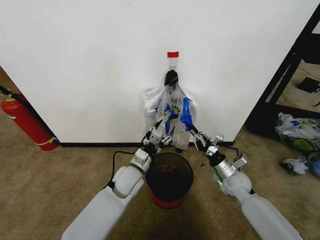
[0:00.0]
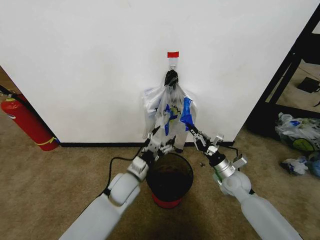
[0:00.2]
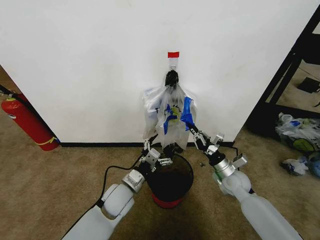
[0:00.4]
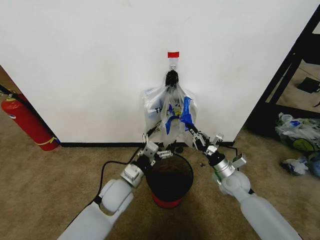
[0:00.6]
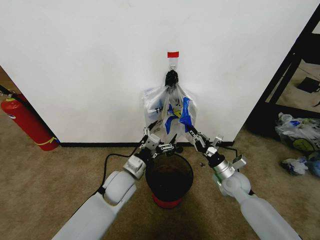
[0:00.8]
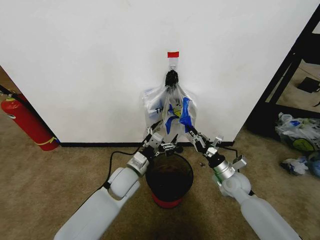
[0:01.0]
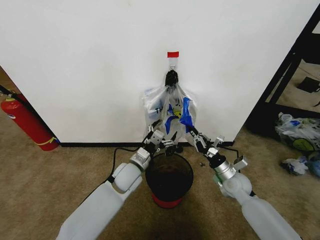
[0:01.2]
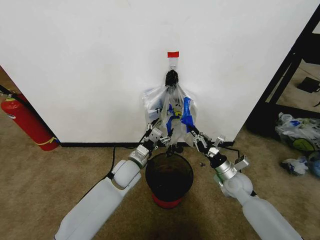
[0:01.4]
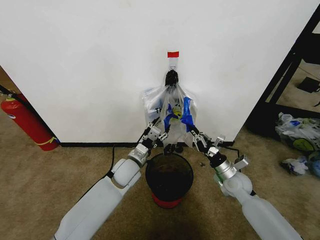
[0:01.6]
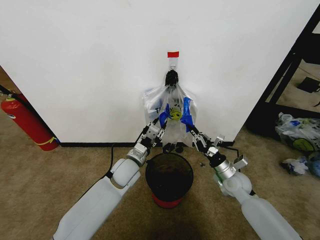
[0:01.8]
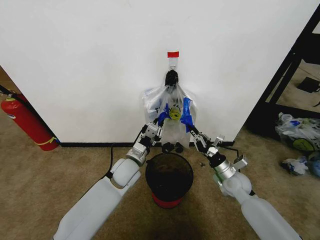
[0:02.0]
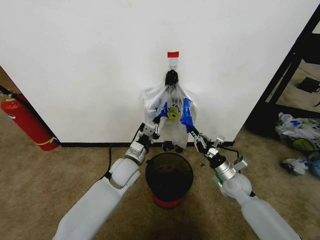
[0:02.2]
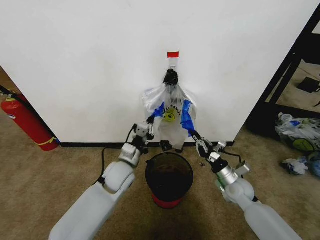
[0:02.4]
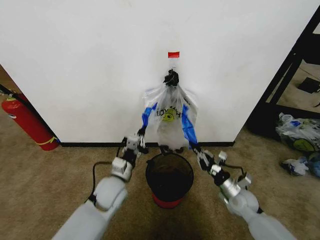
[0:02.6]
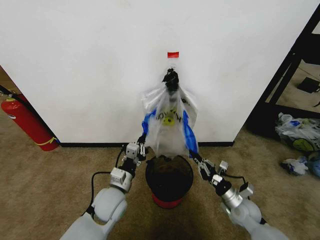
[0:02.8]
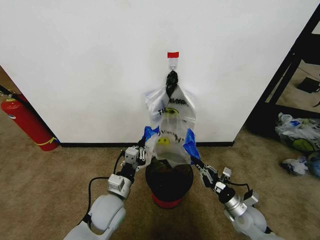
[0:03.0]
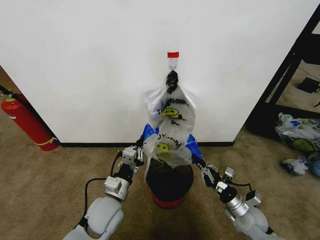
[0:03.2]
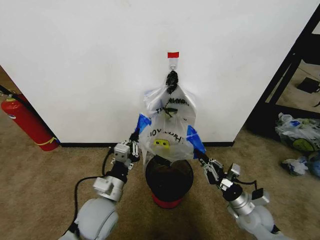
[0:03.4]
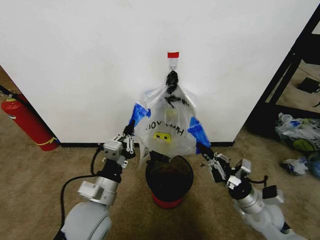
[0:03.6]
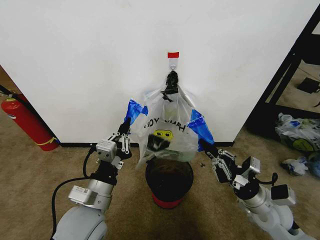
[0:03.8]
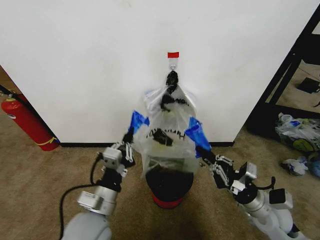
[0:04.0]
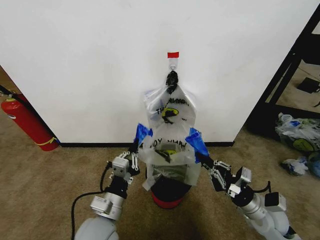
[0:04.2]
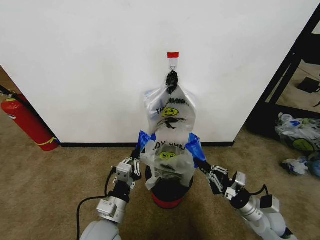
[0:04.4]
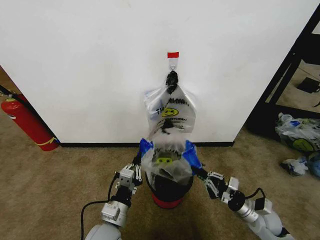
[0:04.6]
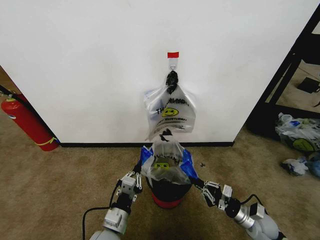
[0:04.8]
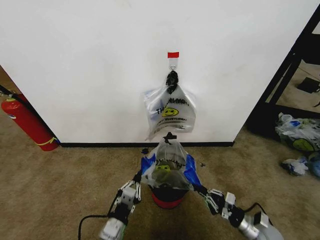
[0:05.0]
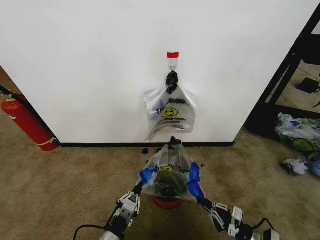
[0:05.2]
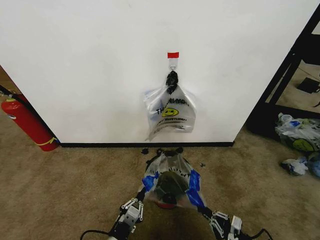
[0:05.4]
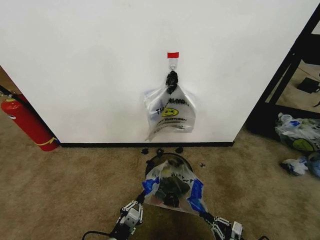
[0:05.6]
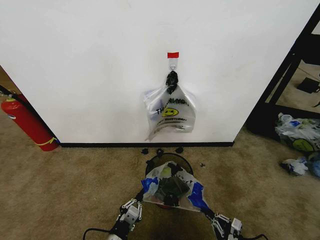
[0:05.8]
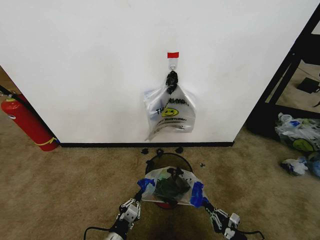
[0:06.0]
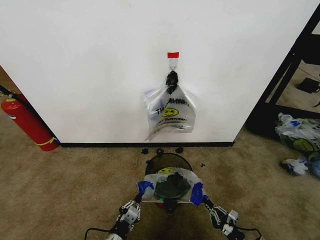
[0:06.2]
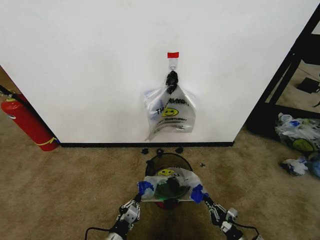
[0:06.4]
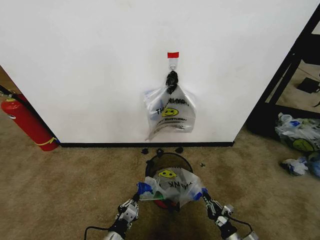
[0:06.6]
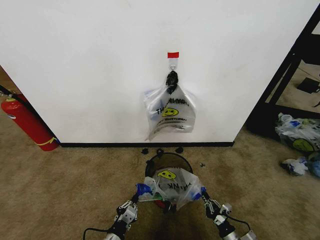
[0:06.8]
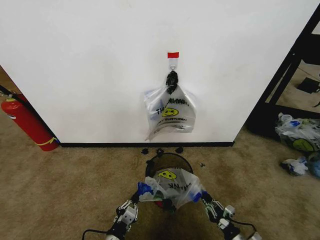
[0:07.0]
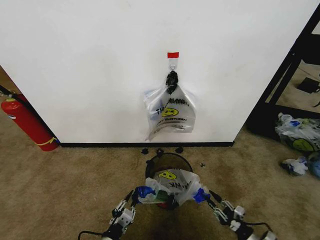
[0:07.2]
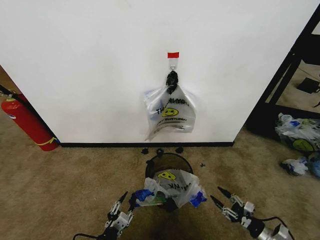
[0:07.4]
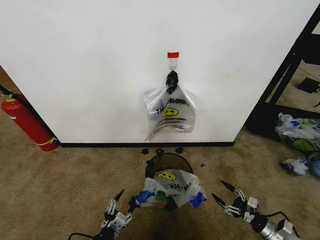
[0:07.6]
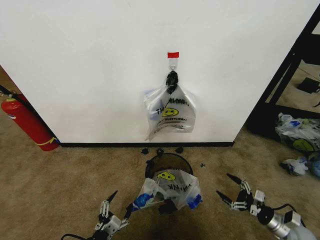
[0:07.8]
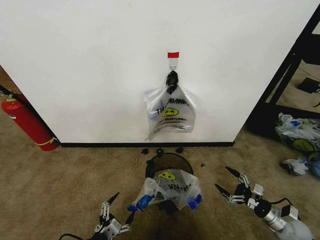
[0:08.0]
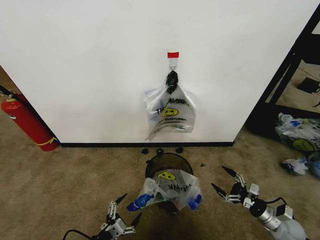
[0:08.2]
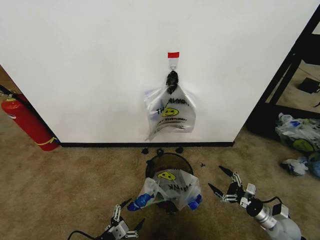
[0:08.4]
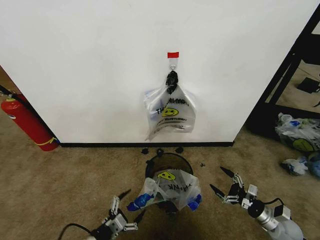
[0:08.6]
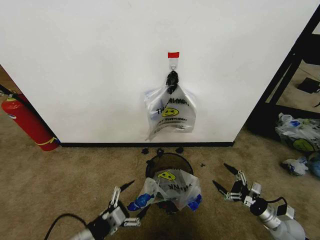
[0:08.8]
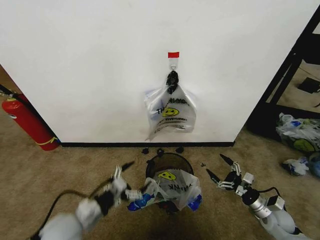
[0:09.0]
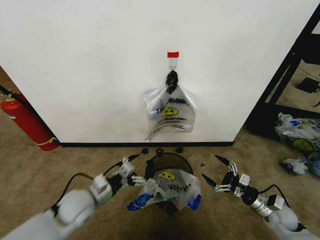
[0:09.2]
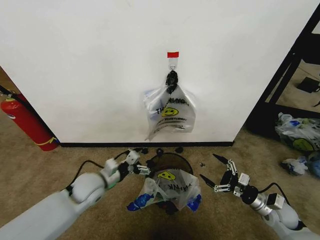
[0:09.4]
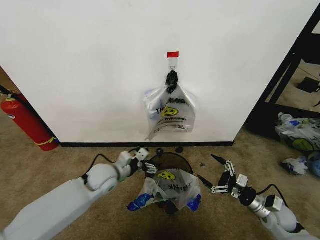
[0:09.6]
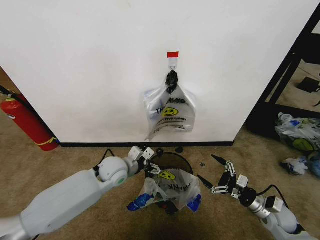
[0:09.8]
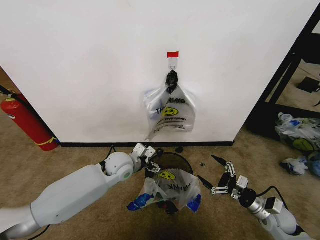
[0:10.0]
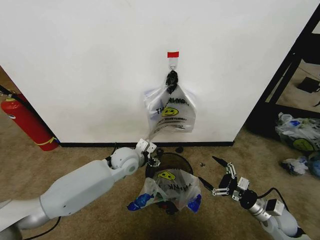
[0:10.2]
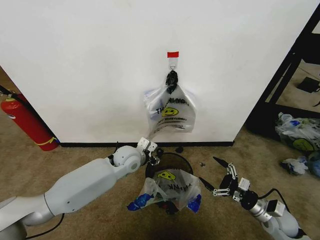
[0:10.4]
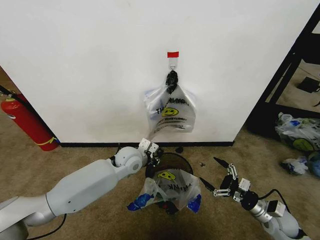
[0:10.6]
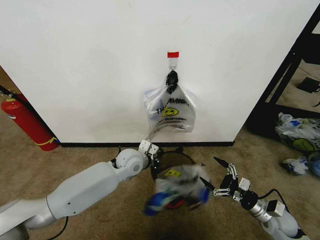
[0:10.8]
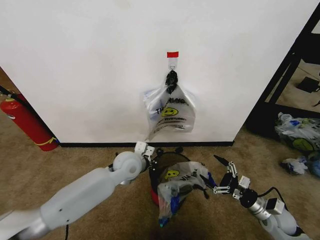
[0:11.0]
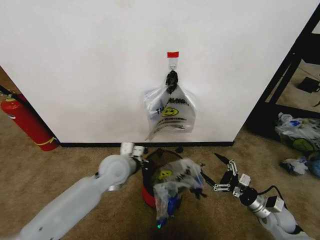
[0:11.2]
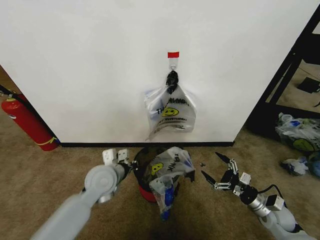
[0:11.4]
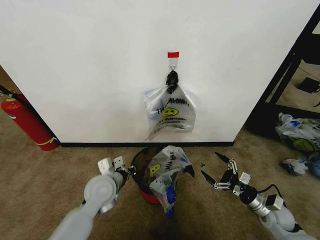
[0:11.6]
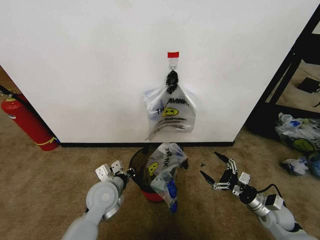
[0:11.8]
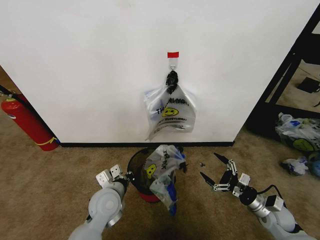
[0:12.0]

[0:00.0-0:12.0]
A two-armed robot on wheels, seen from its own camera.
Task of the whole recording: Pick up the garbage bag from the wall and place it over the trash bin.
0:00.0 to 0:01.6: The left gripper opens, then closes once more.
0:01.6 to 0:03.0: The left gripper moves backward, approximately 15 cm, and closes its fingers. The right gripper travels backward and downward by some 10 cm.
0:03.0 to 0:04.4: The left gripper is displaced backward by about 5 cm, and reaches roughly 10 cm upward, then returns. Meanwhile the right gripper is displaced upward by about 5 cm.
0:04.4 to 0:06.0: Both grippers travel together downward and backward, about 15 cm.
0:06.0 to 0:07.6: The left gripper opens up; the right gripper is displaced to the right, forward and upward by some 10 cm, and opens up.
0:07.6 to 0:09.0: The right gripper is displaced forward and upward by roughly 10 cm; the left gripper moves upward and forward, some 15 cm.
0:09.0 to 0:10.4: The left gripper heads forward and to the right, covering about 25 cm, and closes its fingers.
0:10.4 to 0:12.0: The left gripper moves backward, approximately 15 cm, and closes up.

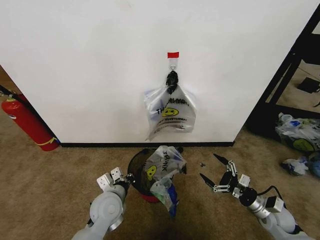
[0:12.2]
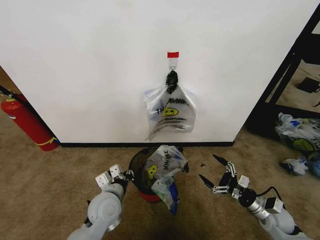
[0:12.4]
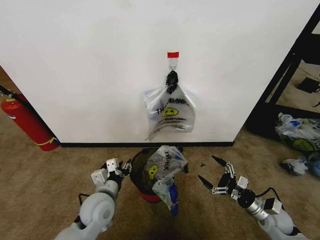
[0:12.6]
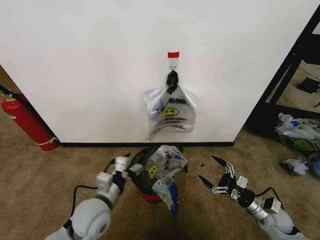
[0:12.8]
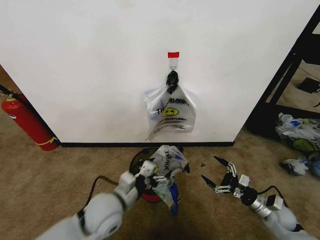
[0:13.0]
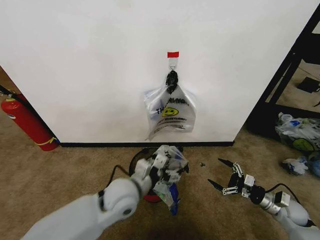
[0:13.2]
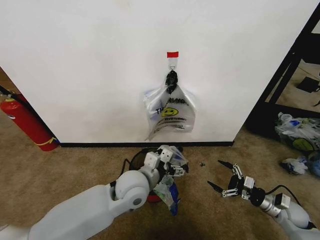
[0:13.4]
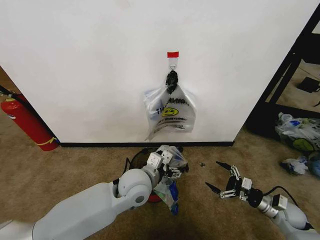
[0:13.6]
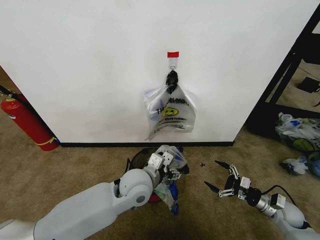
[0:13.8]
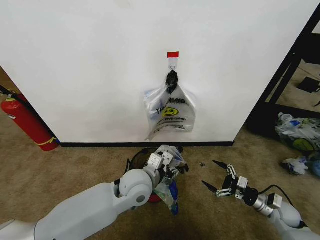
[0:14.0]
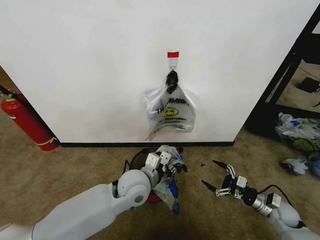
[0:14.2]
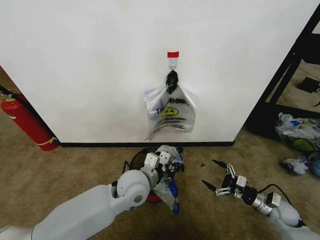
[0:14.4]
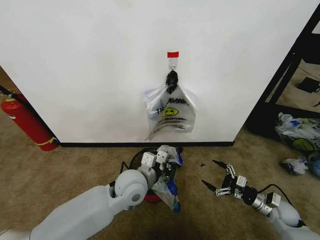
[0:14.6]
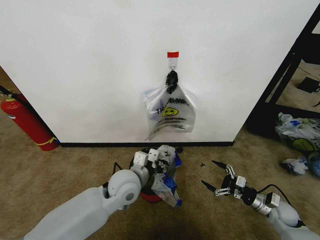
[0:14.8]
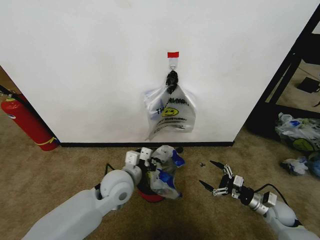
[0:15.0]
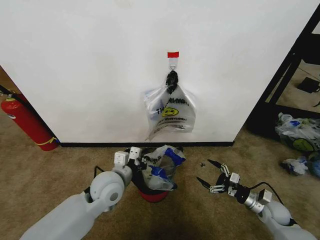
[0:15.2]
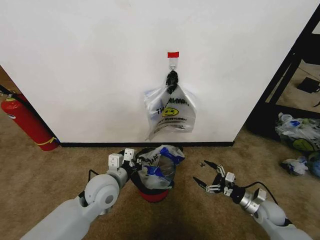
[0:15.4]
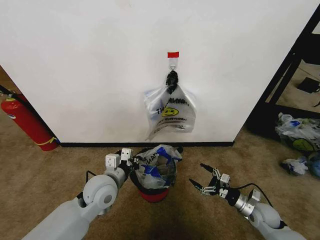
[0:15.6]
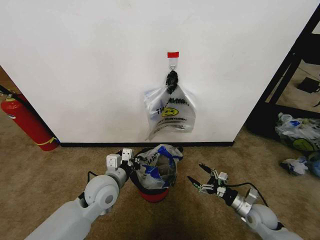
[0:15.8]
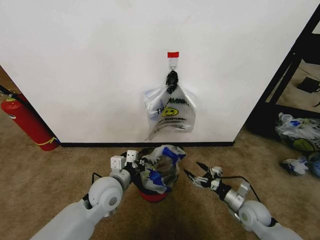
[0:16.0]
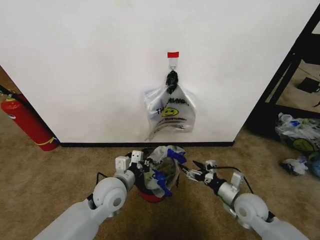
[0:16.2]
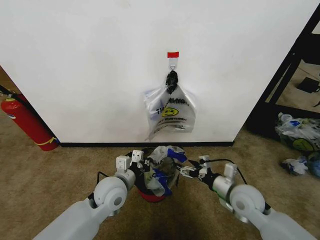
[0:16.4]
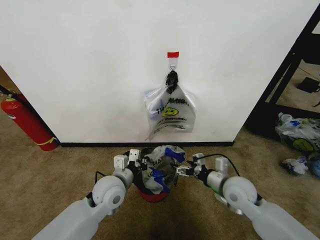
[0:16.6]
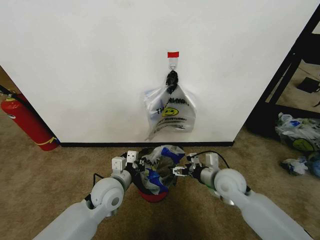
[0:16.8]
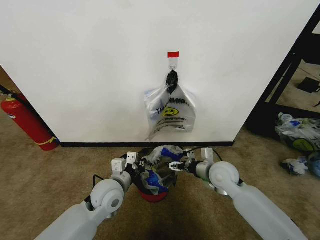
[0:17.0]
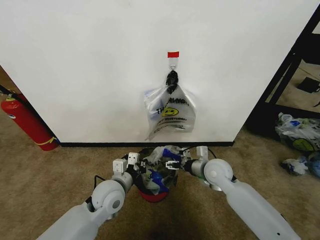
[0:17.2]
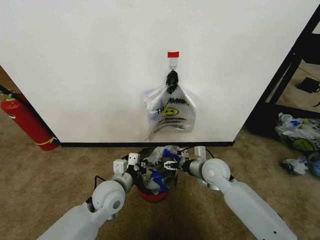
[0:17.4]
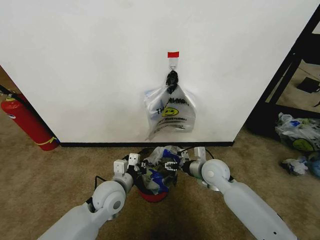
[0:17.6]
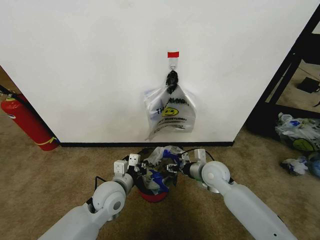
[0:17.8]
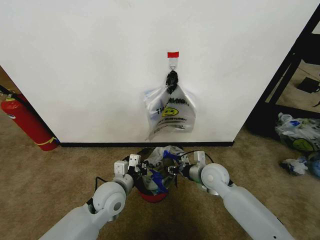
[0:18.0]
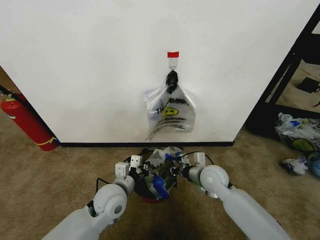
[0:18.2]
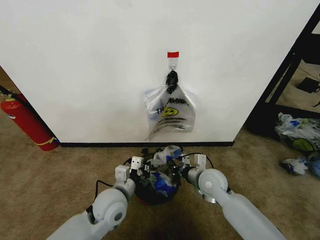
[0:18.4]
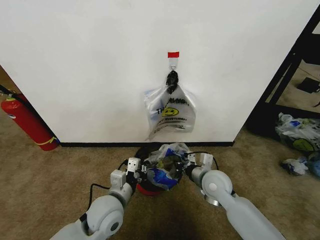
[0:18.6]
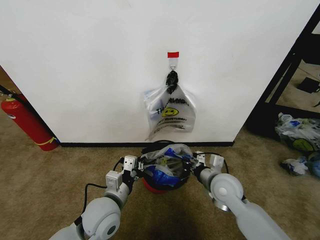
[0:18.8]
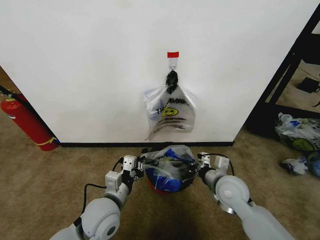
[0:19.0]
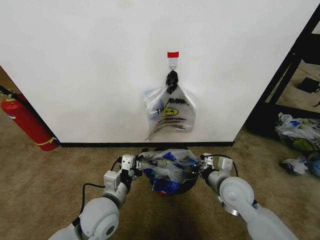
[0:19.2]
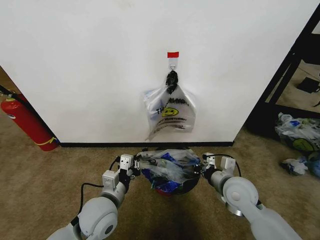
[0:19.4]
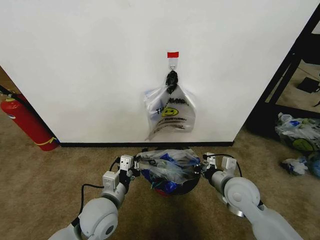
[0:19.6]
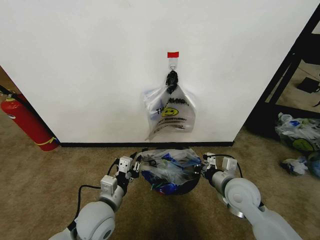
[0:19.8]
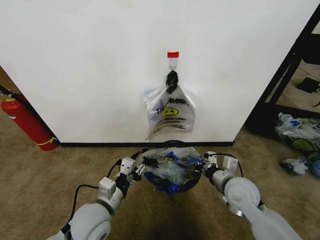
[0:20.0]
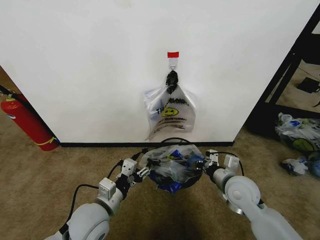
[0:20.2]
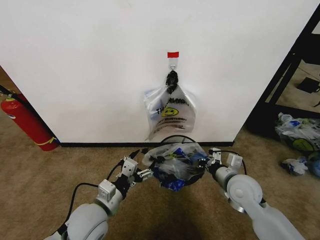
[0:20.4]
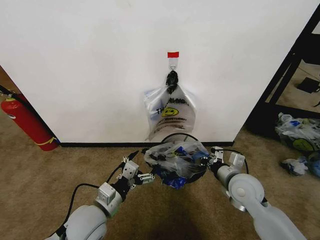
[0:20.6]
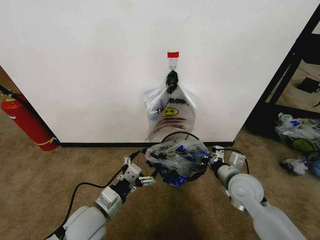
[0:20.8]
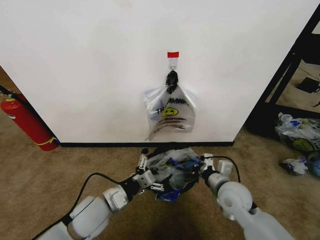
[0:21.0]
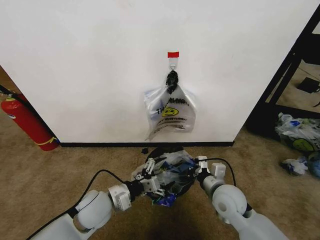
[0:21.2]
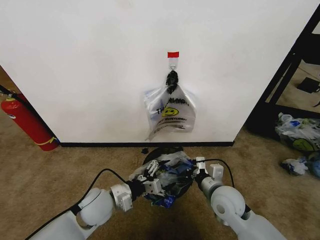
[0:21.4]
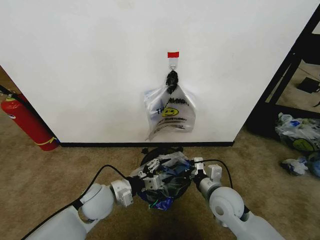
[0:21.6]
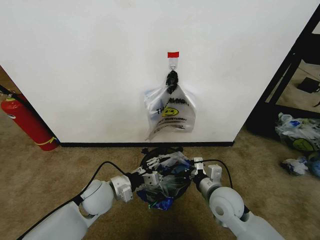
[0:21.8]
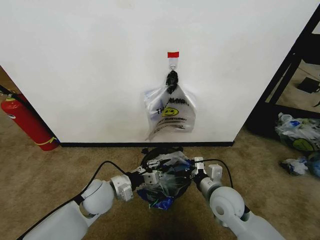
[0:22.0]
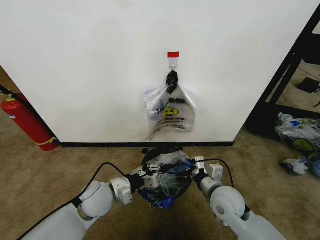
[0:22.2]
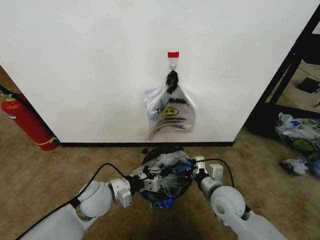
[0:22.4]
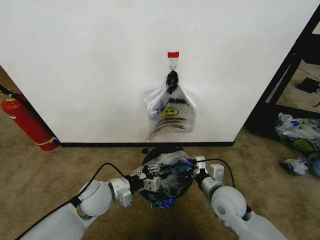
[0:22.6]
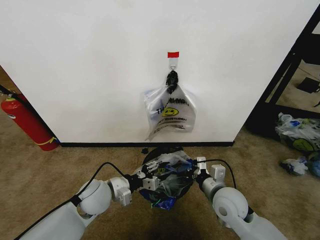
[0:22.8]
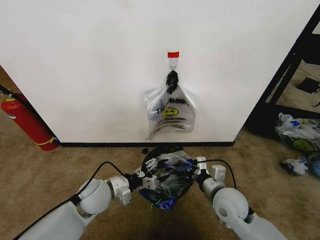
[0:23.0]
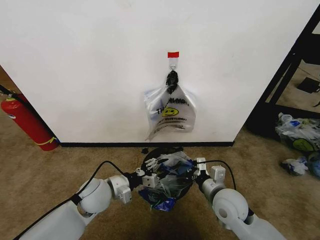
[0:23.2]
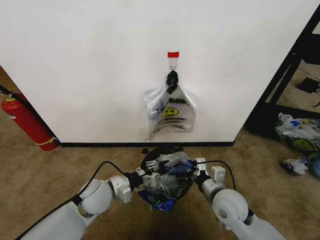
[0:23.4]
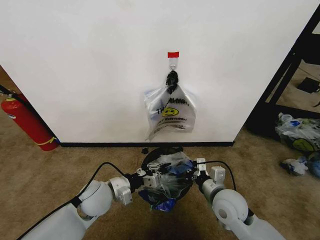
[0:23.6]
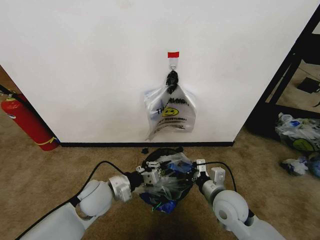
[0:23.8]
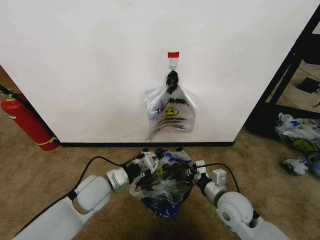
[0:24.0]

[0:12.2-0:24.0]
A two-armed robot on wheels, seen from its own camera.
Task of the whole recording: Pick up the garbage bag from the wall and place it over the trash bin.
0:12.2 to 0:13.6: The right gripper is displaced to the right by some 5 cm. The left gripper moves to the right and upward, about 10 cm, and opens up.
0:13.6 to 0:15.2: The left gripper shifts approximately 10 cm to the left, and closes.
0:15.2 to 0:16.6: The right gripper travels to the left and upward by roughly 20 cm.
0:16.6 to 0:18.2: The right gripper is displaced to the left by some 5 cm, and closes up.
0:18.2 to 0:19.6: The left gripper moves about 5 cm. Meanwhile the right gripper travels backward and to the right by approximately 10 cm.
0:19.6 to 0:21.0: The left gripper opens its fingers.
0:21.0 to 0:22.6: The left gripper goes some 5 cm forward, and closes.
0:22.6 to 0:24.0: The left gripper opens, then closes again.
